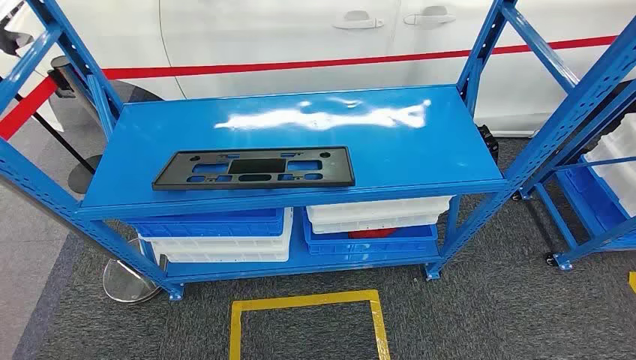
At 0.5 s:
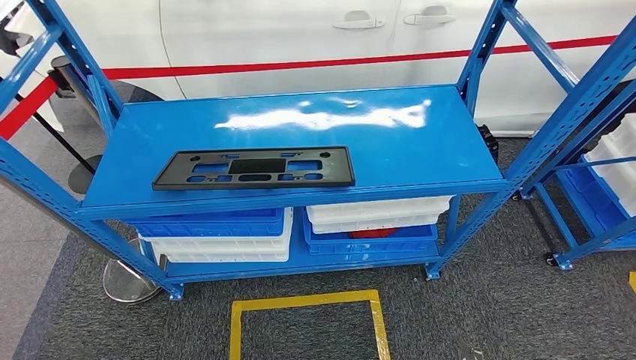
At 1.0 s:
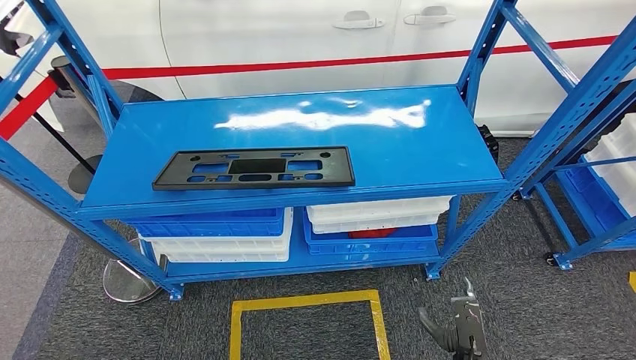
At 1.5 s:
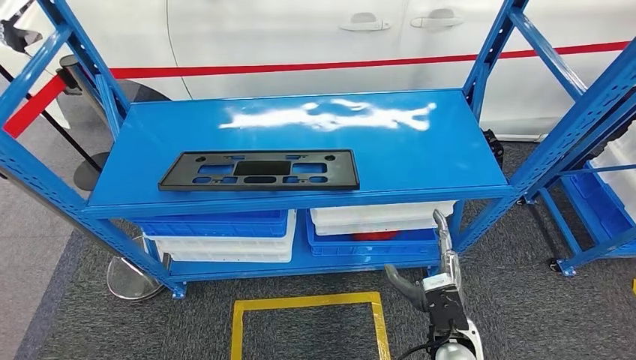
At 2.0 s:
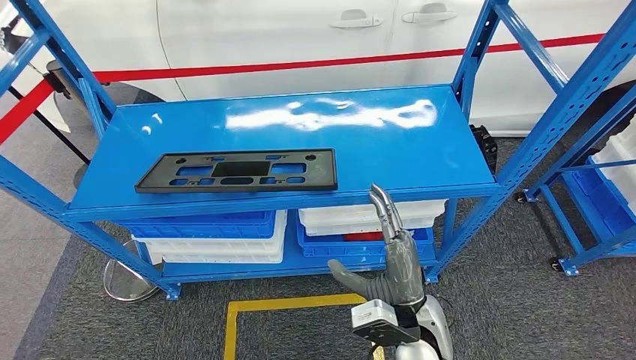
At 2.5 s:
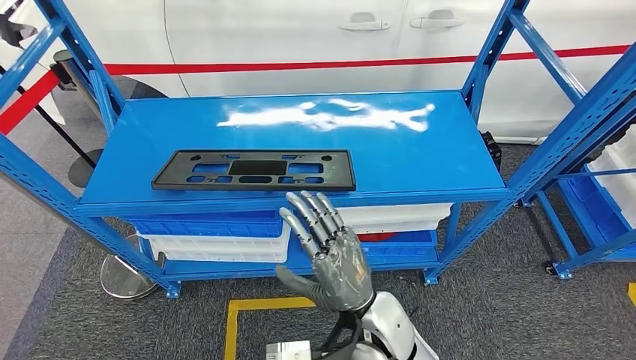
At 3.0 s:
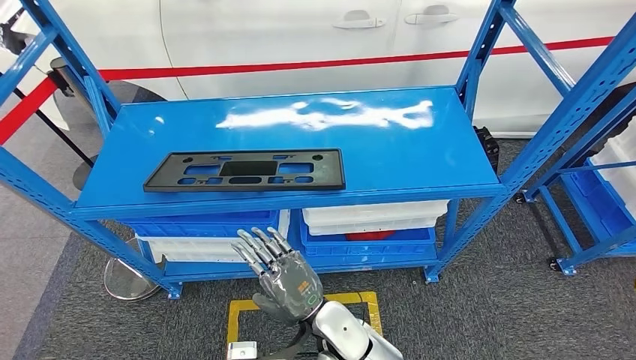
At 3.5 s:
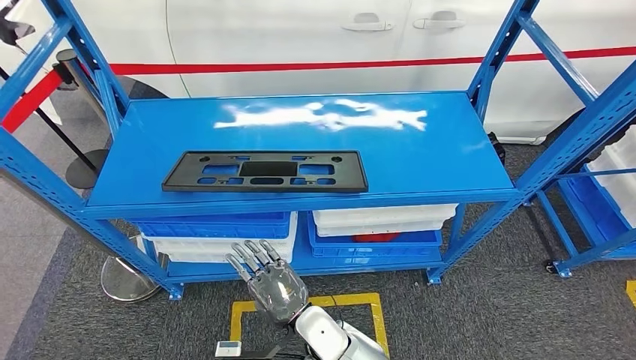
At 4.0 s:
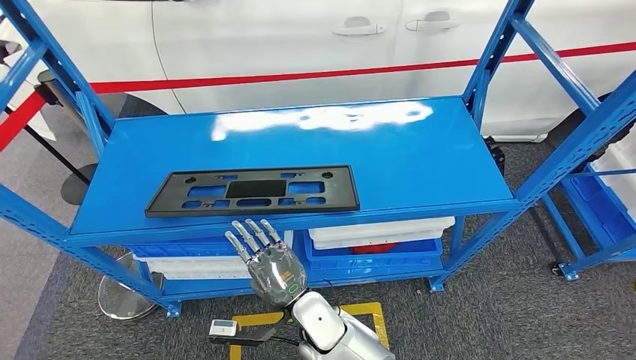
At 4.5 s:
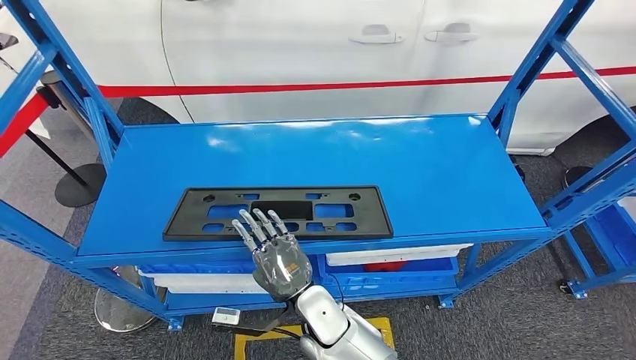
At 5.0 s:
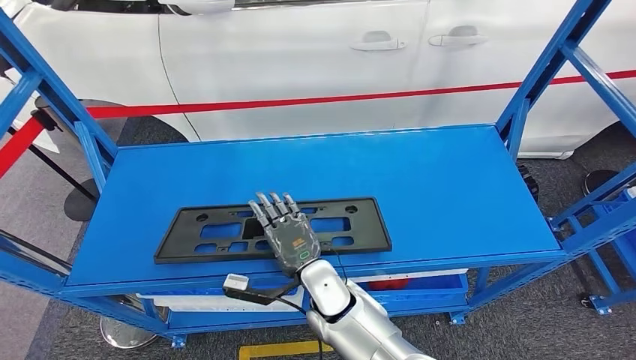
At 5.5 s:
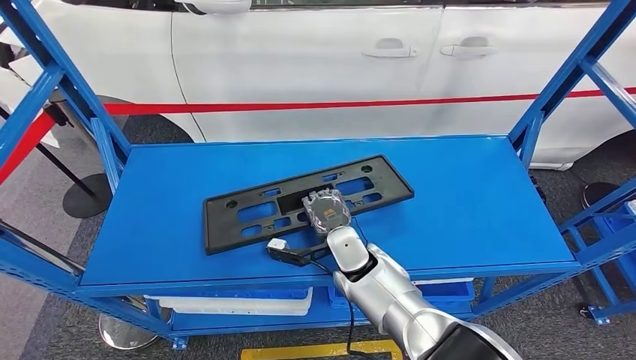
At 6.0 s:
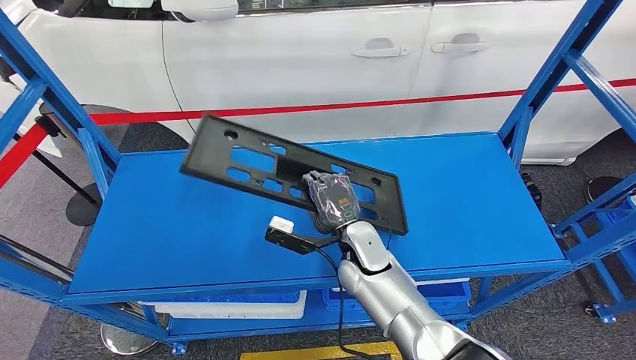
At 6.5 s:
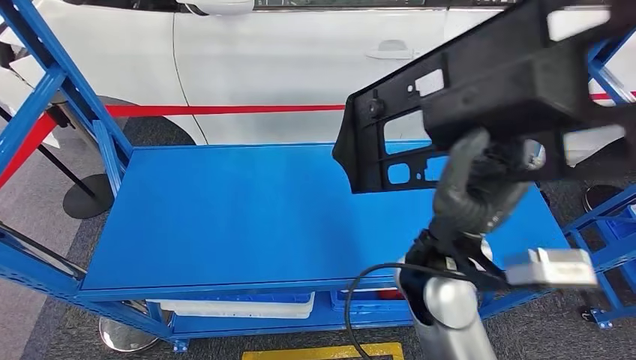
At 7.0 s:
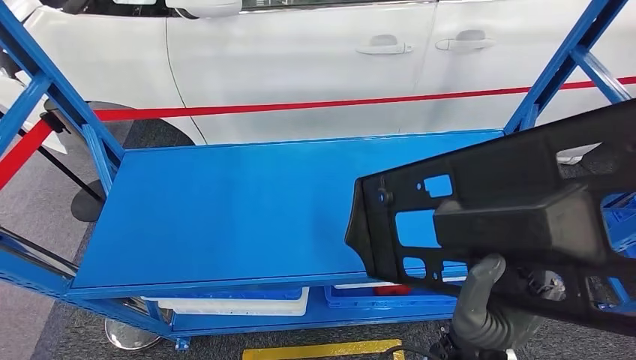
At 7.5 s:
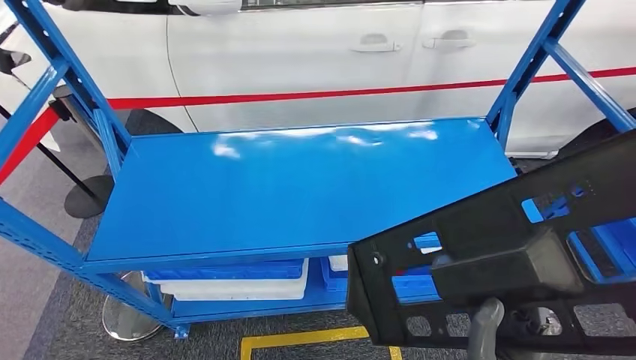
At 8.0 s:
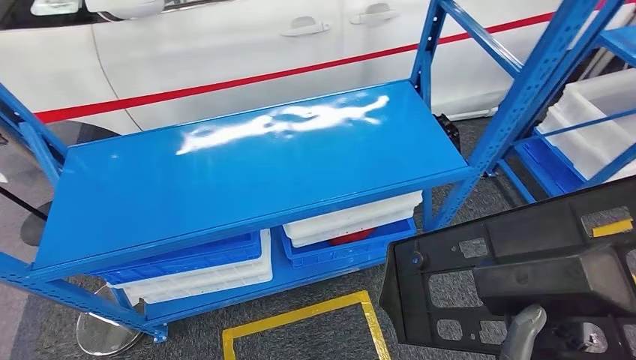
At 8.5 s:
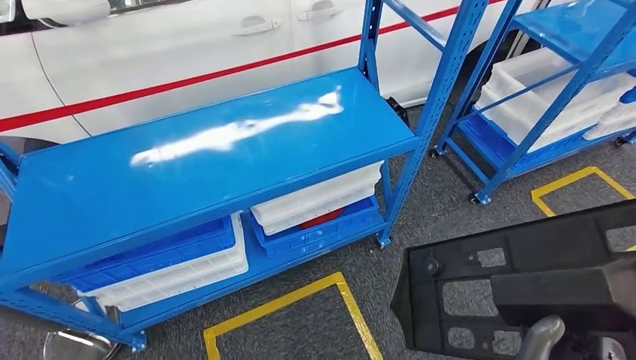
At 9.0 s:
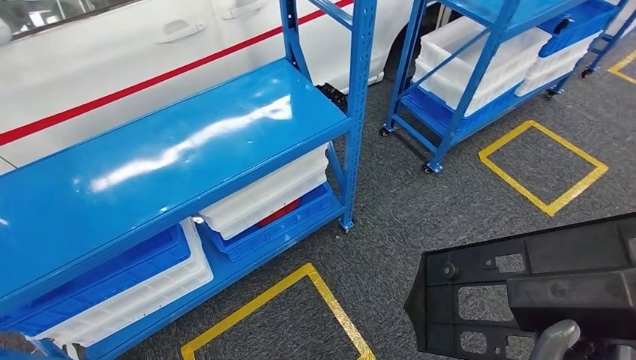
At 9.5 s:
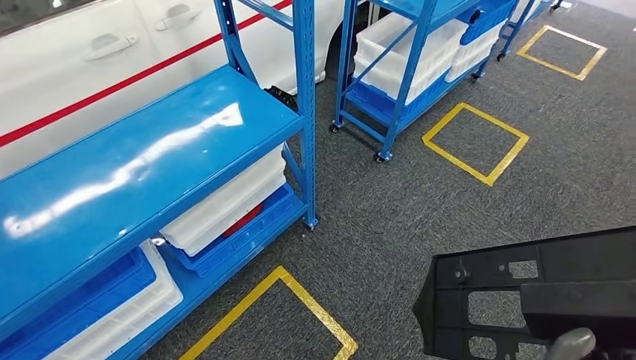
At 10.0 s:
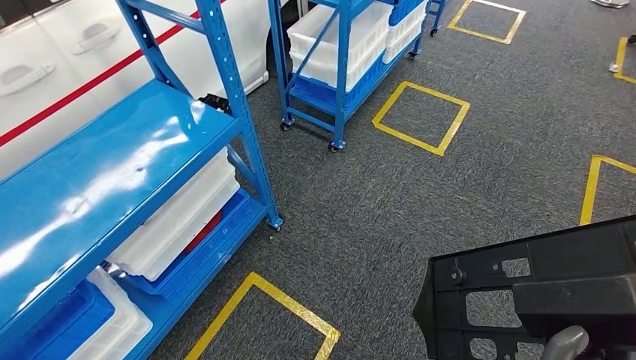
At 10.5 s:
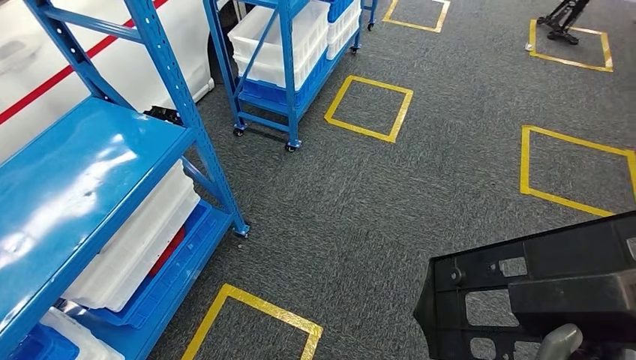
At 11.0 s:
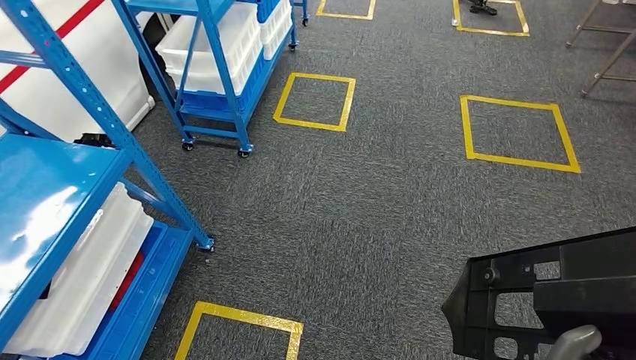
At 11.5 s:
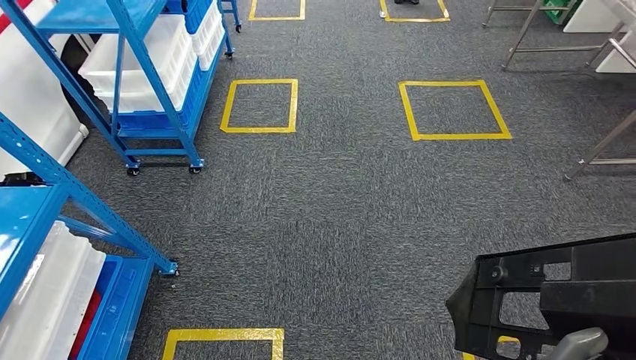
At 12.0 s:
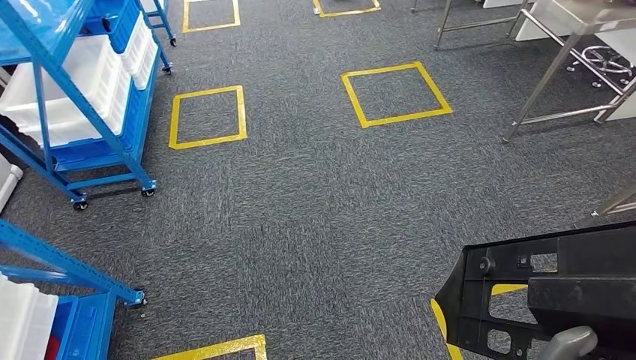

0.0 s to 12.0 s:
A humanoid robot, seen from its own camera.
Step, 0.0 to 7.0 s: Pick up the large material from the shelf.

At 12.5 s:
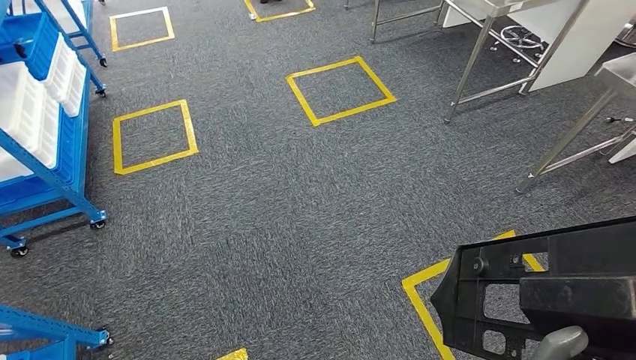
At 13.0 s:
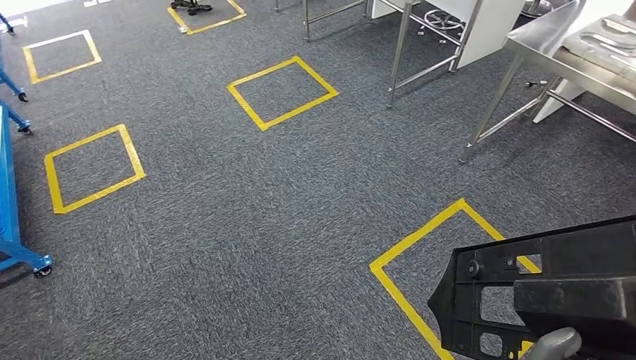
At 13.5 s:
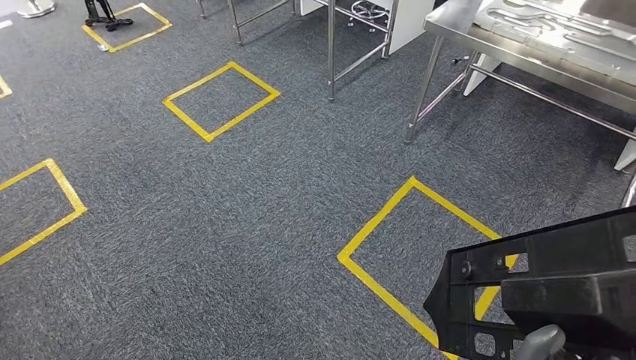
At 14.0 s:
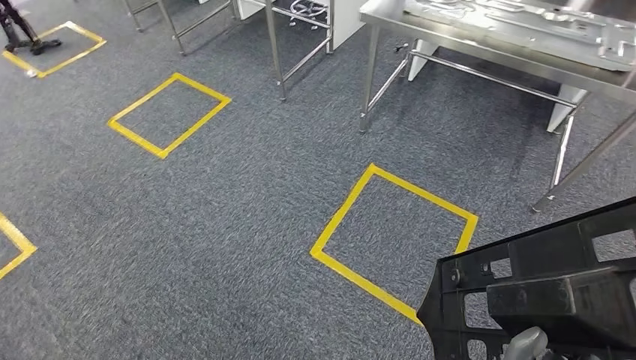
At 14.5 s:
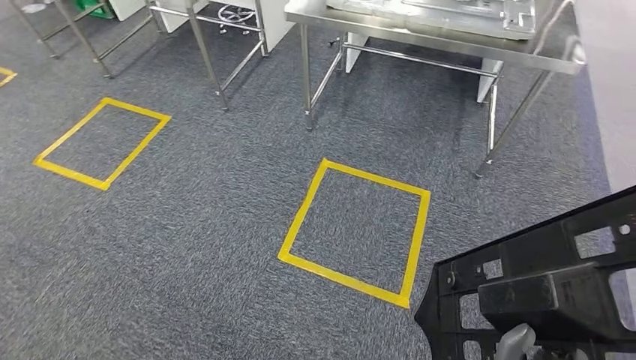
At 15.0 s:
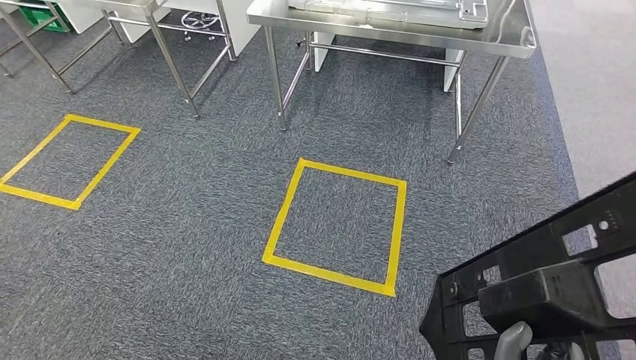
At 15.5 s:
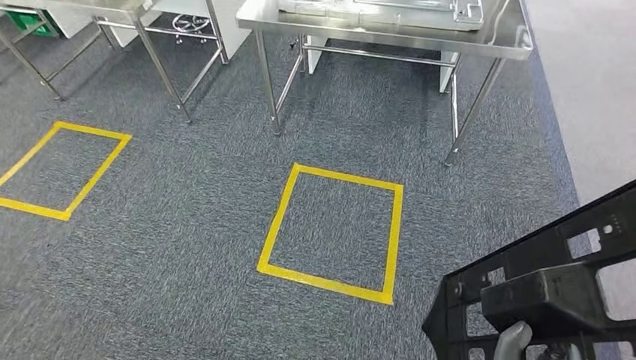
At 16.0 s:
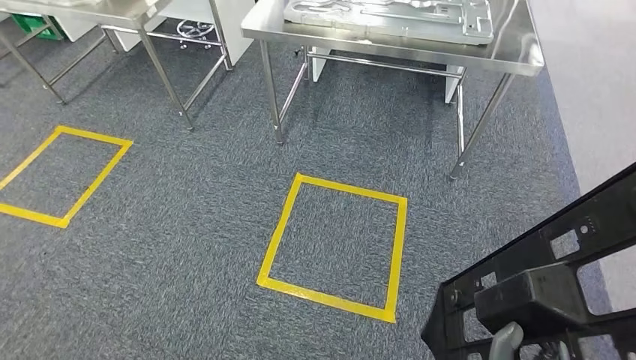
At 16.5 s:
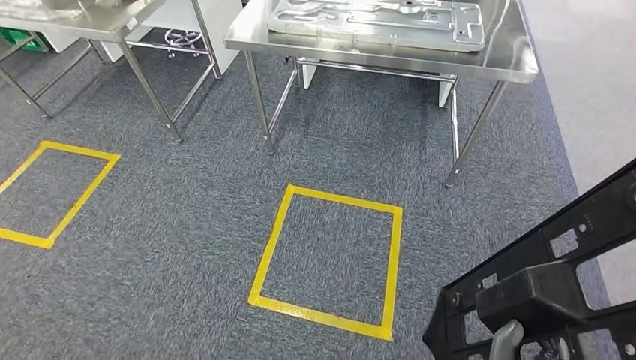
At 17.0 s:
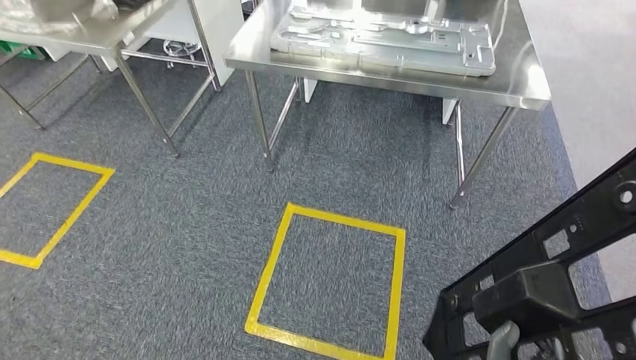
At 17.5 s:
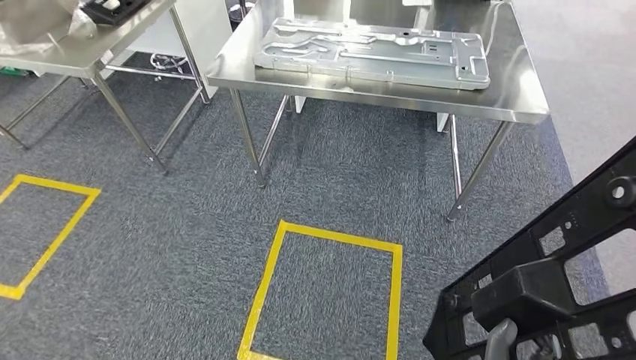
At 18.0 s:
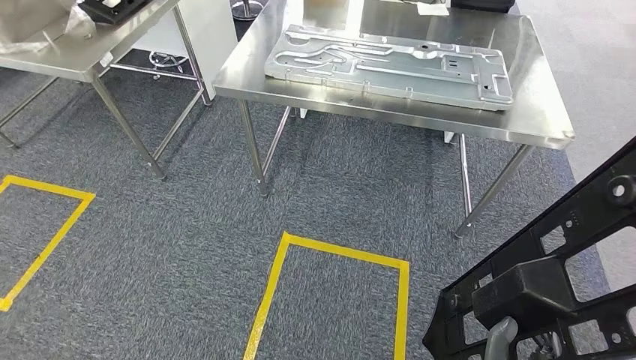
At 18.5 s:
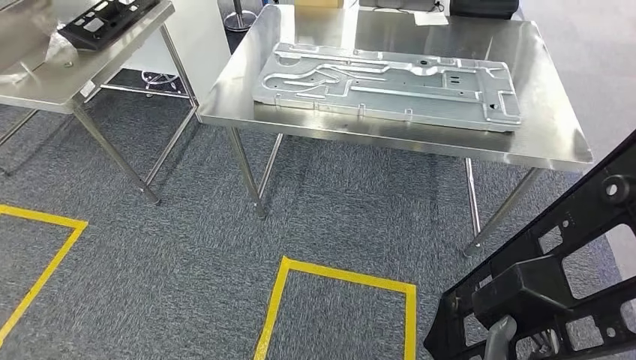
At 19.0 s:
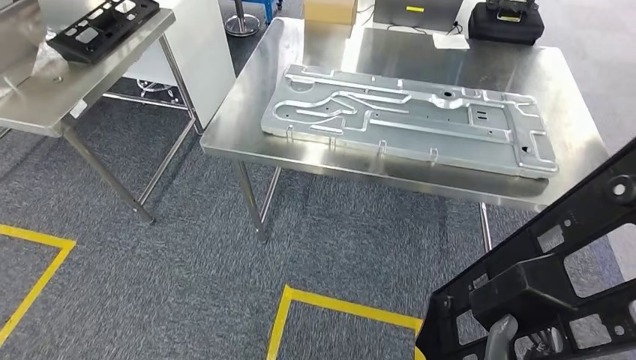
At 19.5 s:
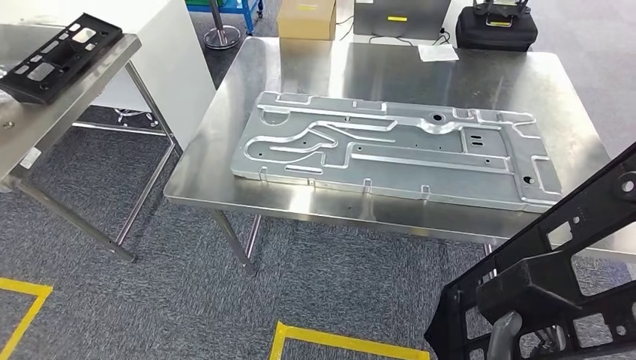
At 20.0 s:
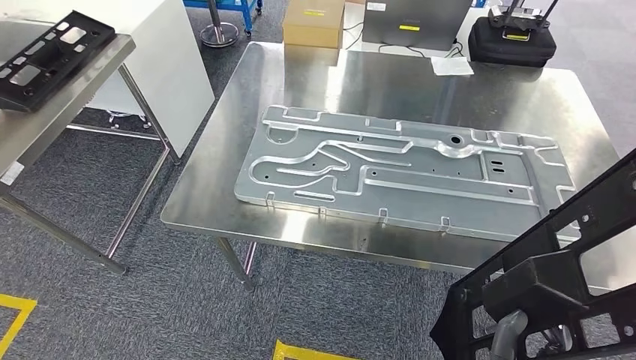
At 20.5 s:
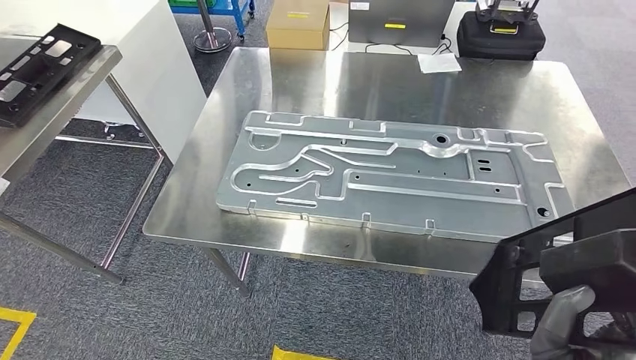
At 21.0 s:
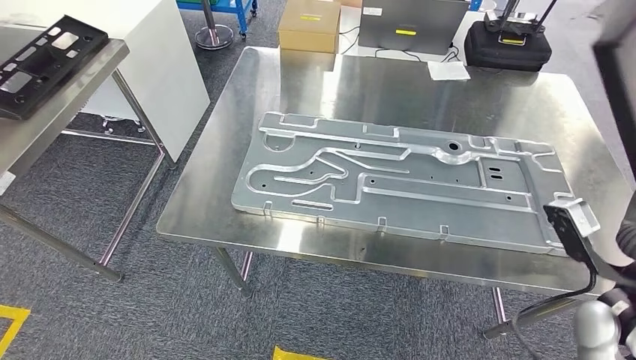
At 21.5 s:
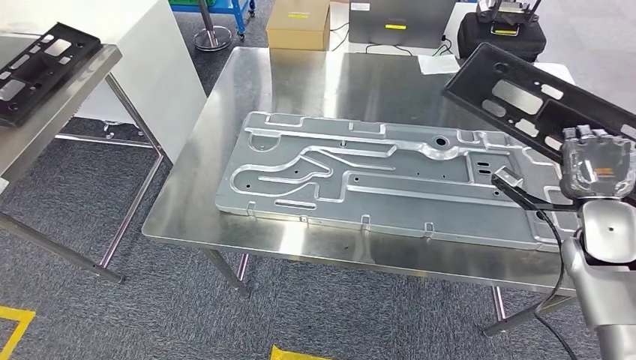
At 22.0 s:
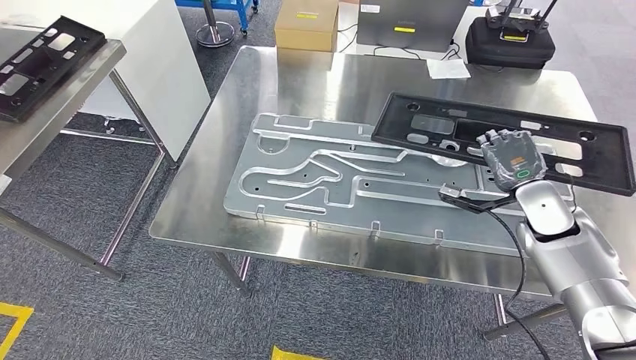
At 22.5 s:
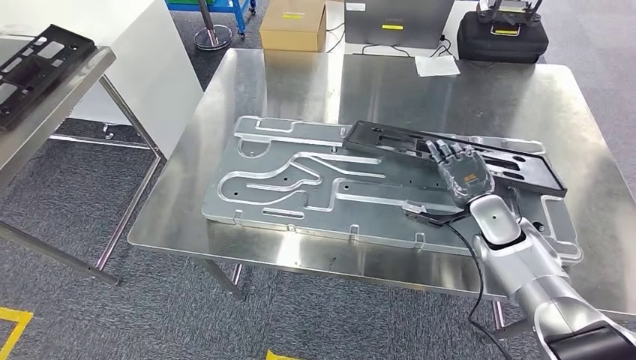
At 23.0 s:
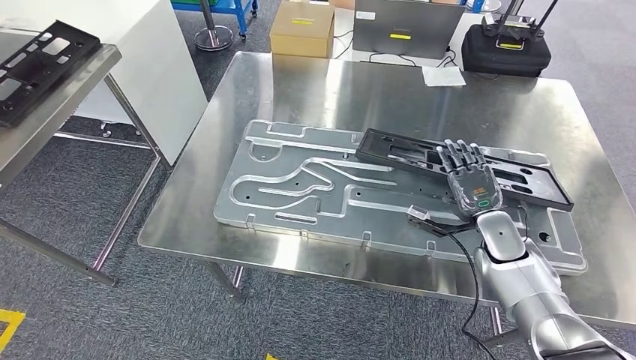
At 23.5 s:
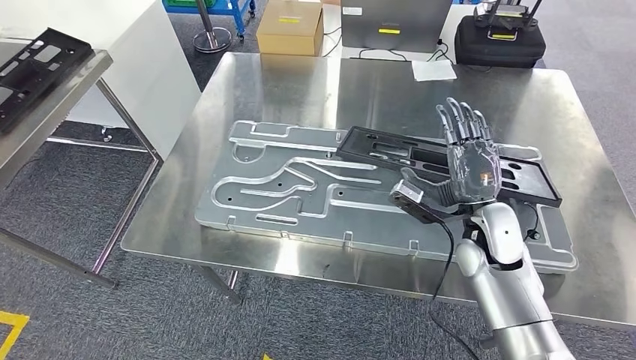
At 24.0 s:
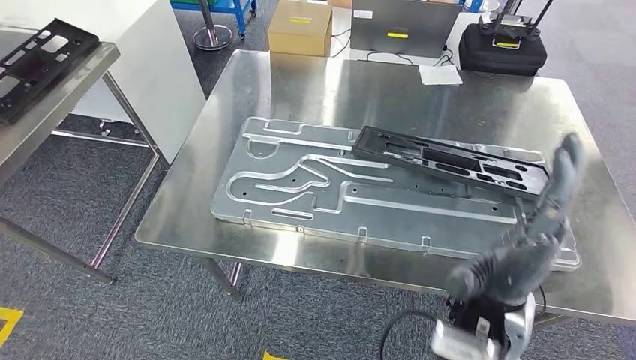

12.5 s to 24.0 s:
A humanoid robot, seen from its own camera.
Step, 12.5 to 21.0 s: Move the large material to the workbench.
